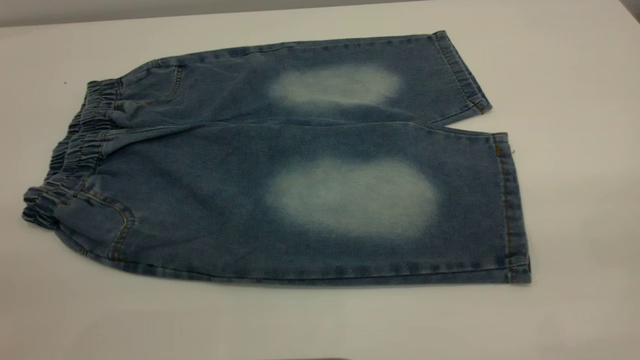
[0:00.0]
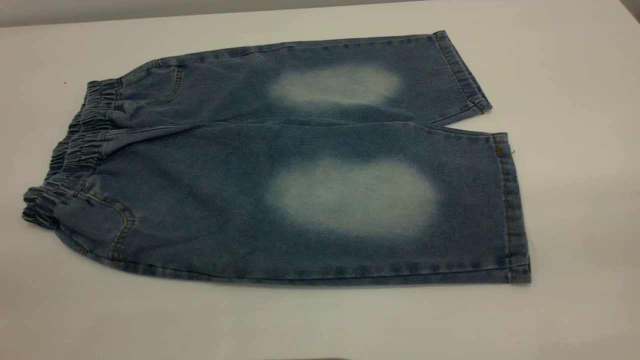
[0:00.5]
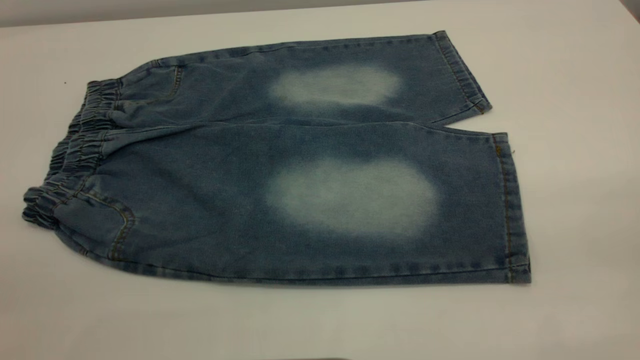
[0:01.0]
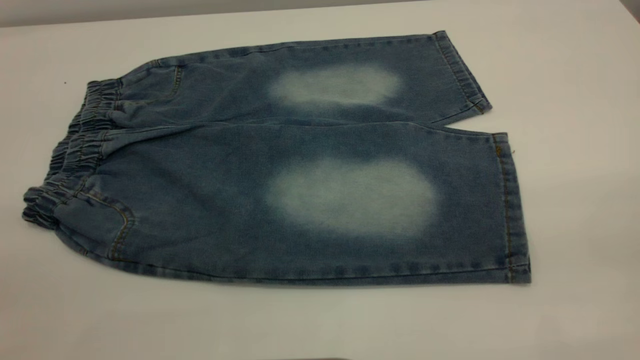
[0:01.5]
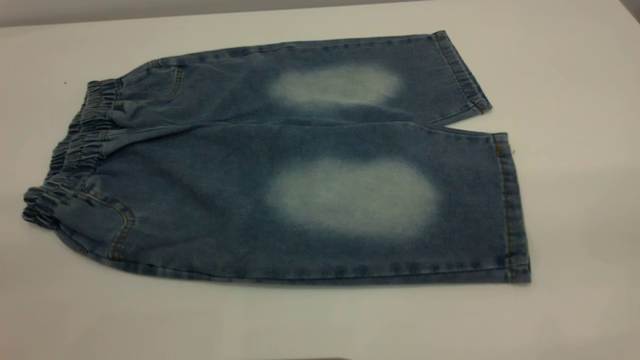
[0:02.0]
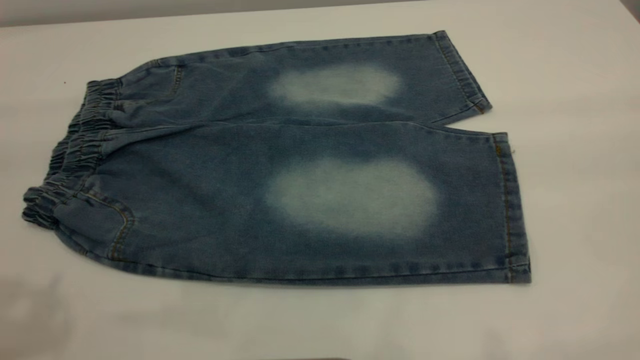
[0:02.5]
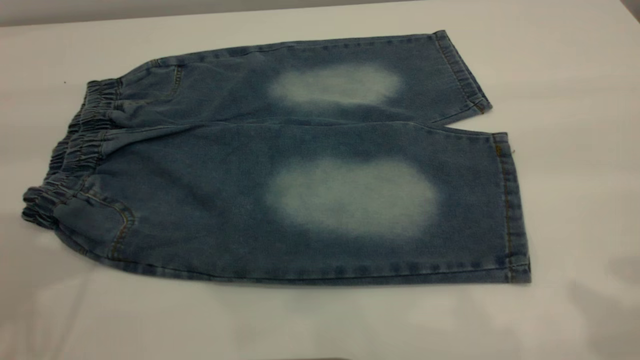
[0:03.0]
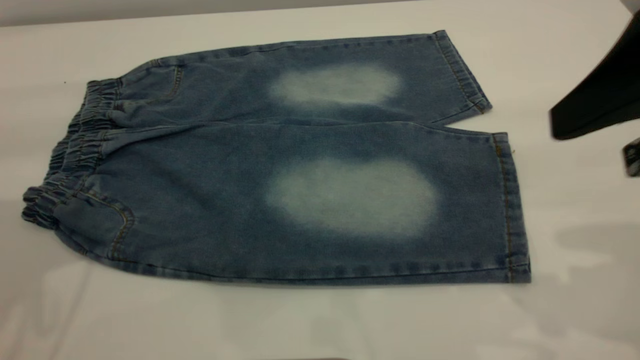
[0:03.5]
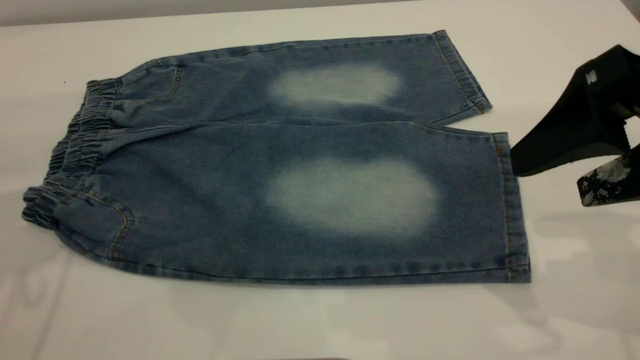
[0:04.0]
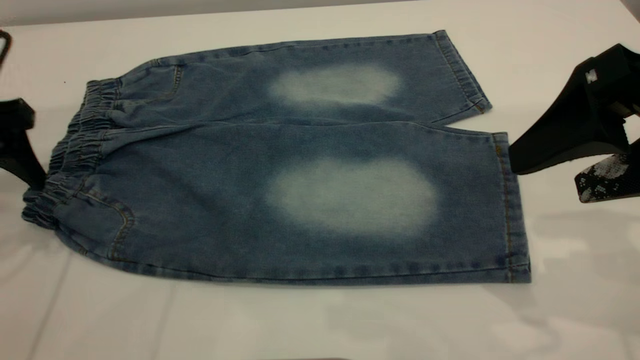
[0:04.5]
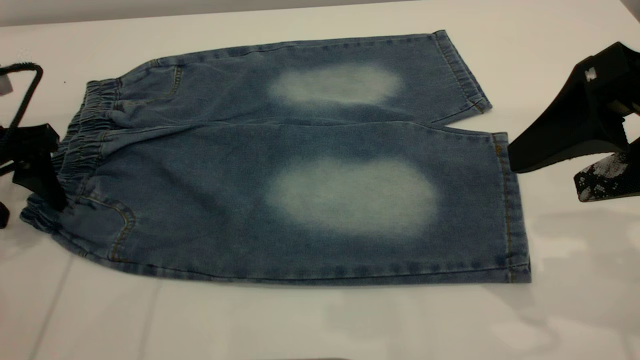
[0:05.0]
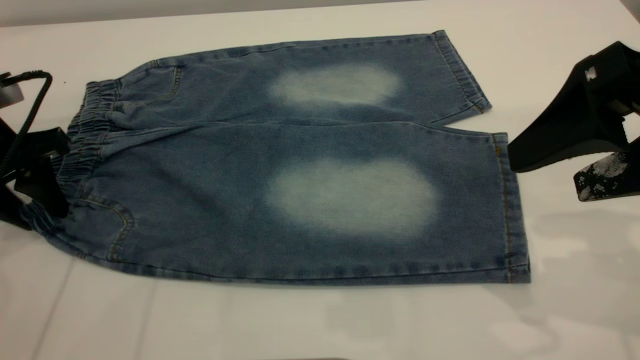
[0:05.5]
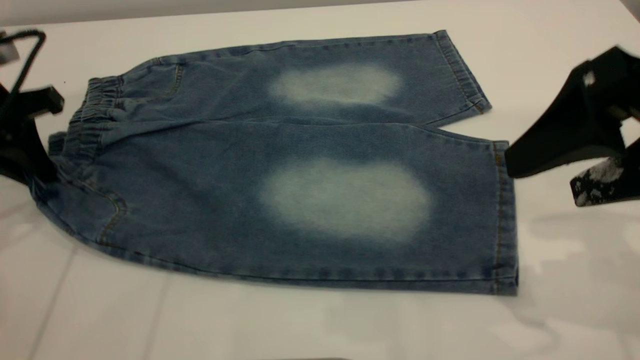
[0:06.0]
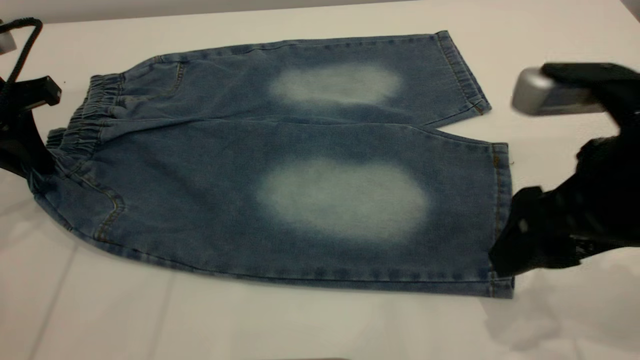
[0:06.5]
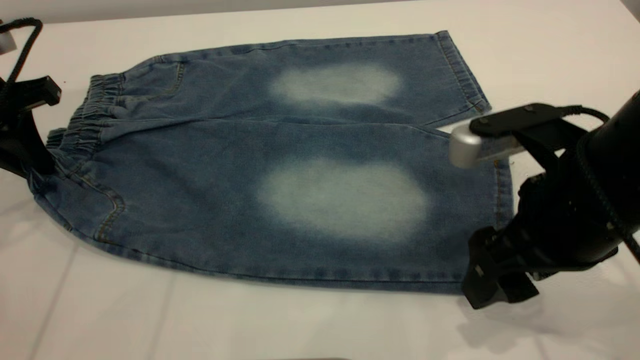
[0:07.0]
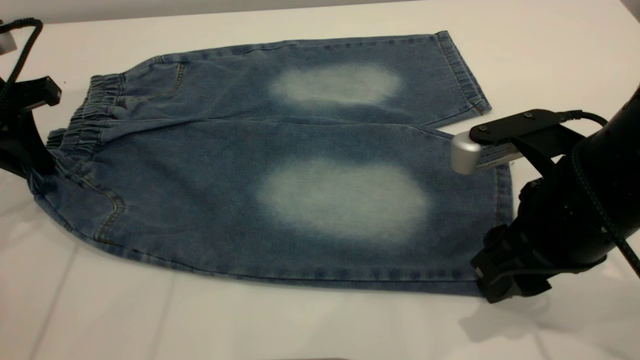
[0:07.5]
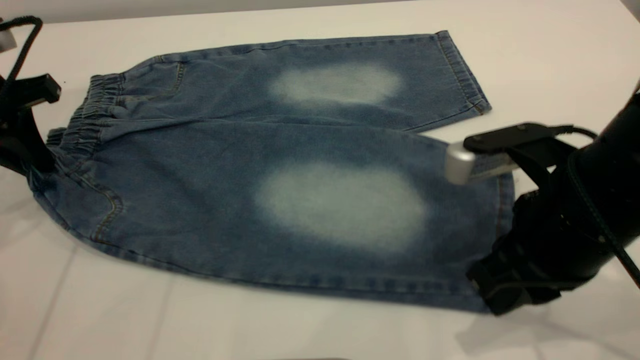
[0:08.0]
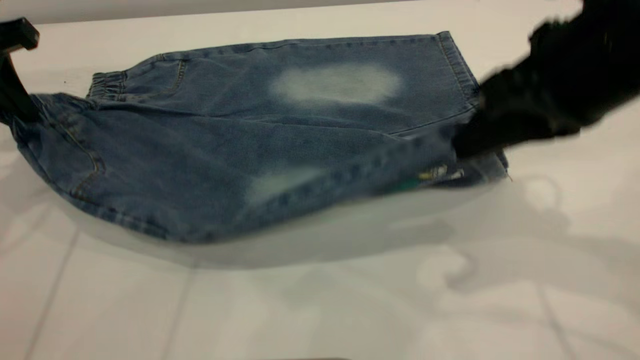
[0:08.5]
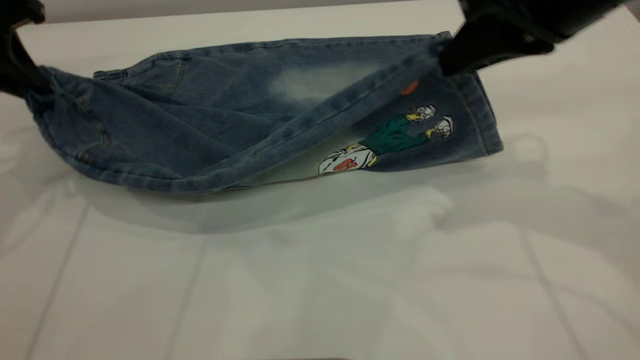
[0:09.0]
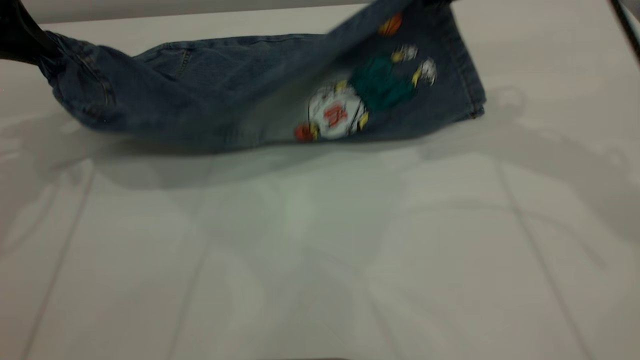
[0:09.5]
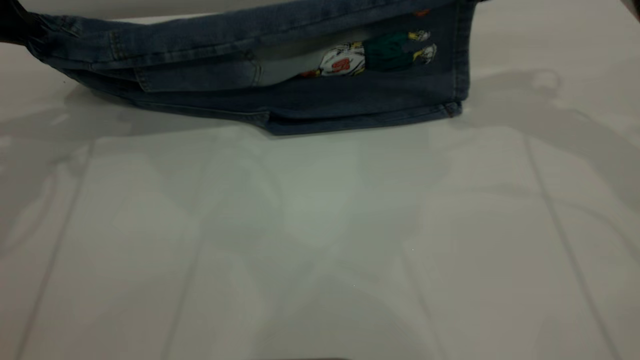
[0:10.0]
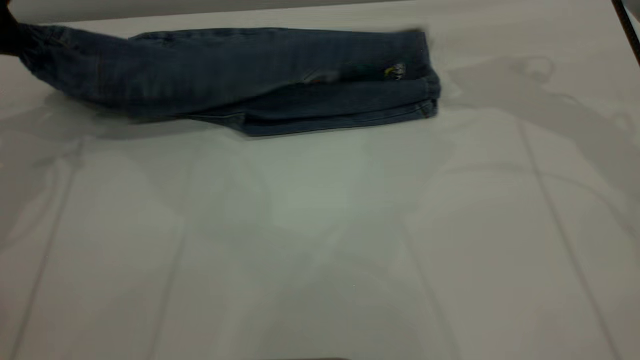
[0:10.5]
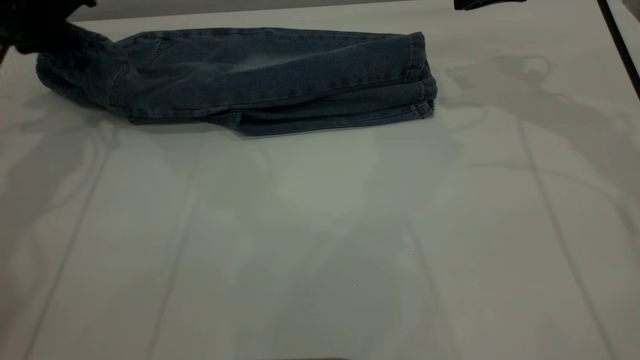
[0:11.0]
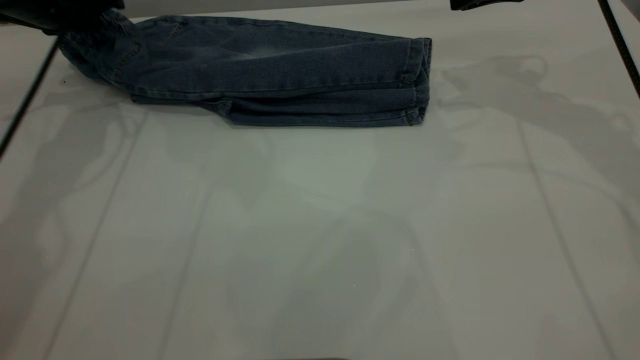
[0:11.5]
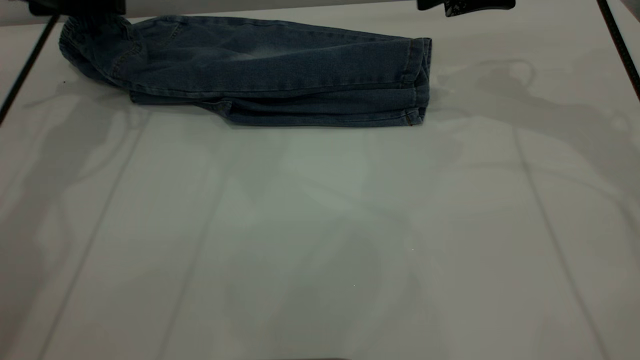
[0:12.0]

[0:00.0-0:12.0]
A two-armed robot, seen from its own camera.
0:02.0 to 0:04.0: The right gripper shifts approximately 25 cm forward and downward.
0:04.0 to 0:06.0: The left gripper travels forward and downward by roughly 10 cm, and closes its fingers.
0:06.0 to 0:08.0: The right gripper moves downward and to the left, some 10 cm, and closes up.
0:08.0 to 0:10.0: The right gripper goes roughly 25 cm forward and upward. Meanwhile the left gripper is displaced upward by approximately 5 cm.
0:10.0 to 0:12.0: The right gripper opens, while the left gripper goes roughly 10 cm forward, and opens its fingers.

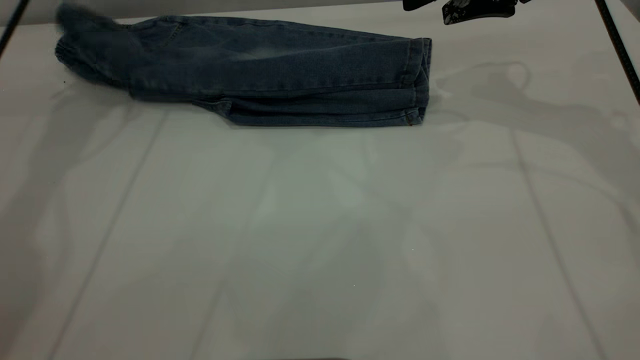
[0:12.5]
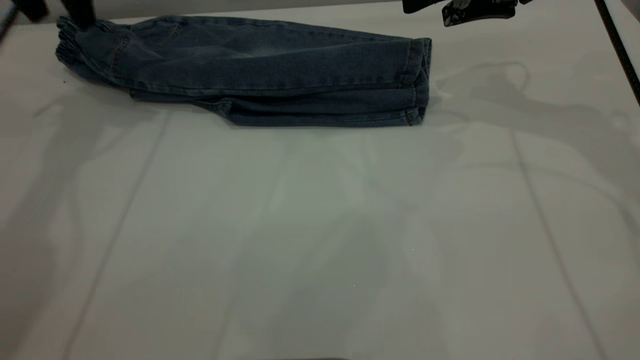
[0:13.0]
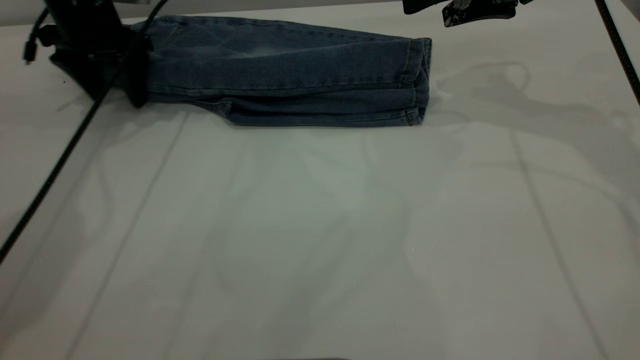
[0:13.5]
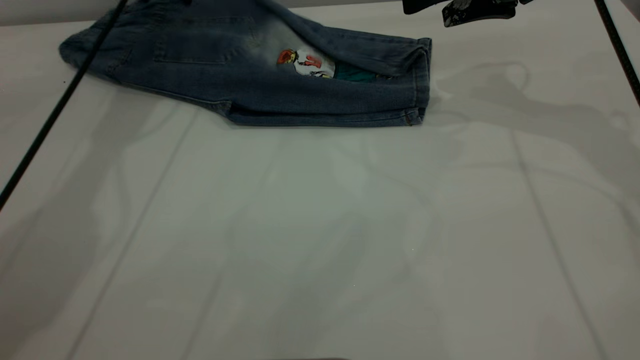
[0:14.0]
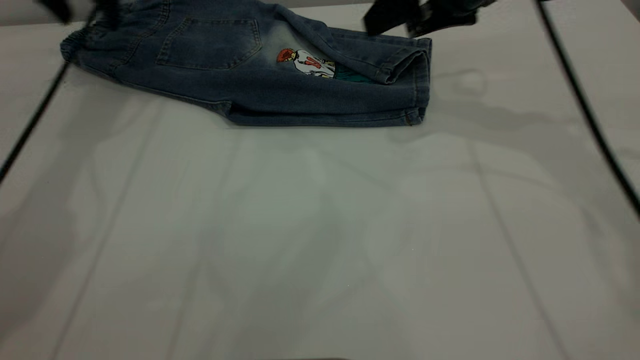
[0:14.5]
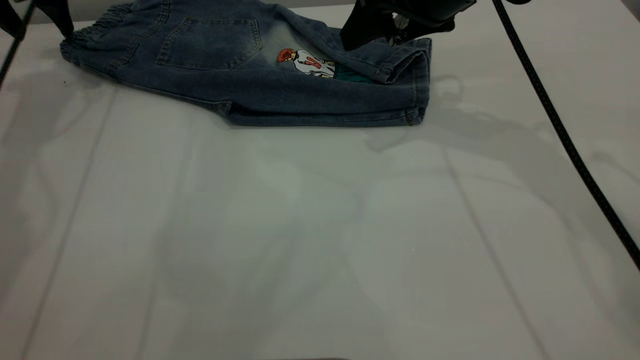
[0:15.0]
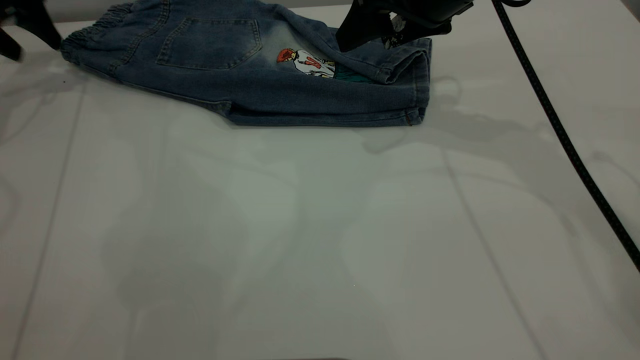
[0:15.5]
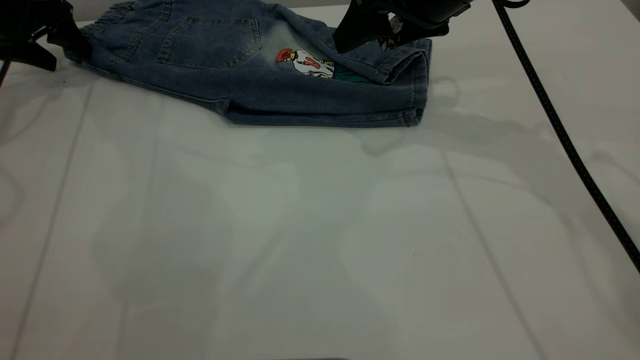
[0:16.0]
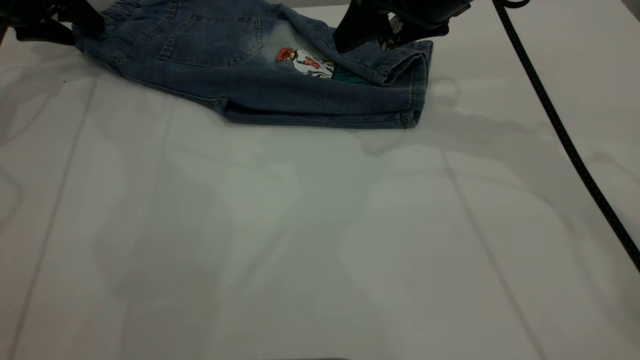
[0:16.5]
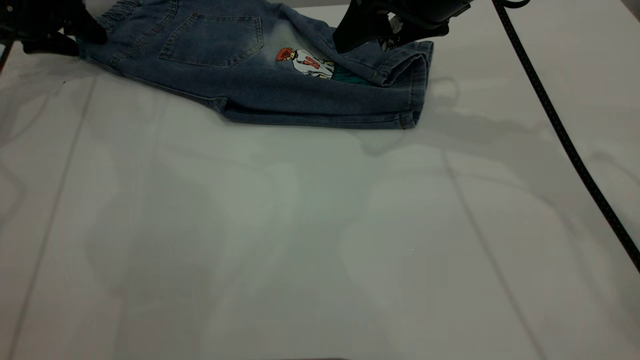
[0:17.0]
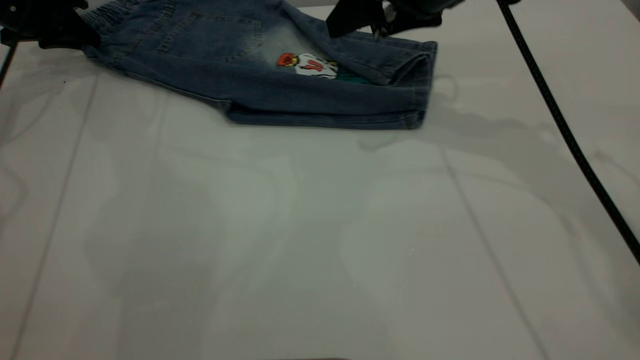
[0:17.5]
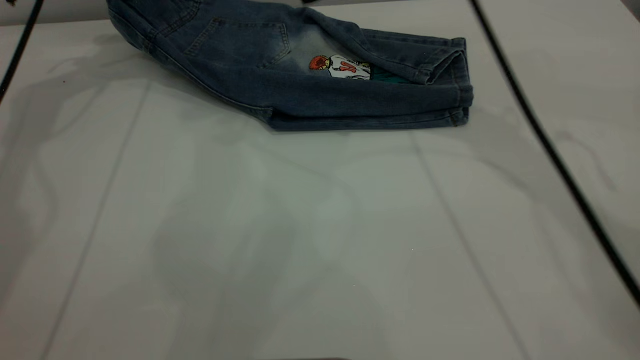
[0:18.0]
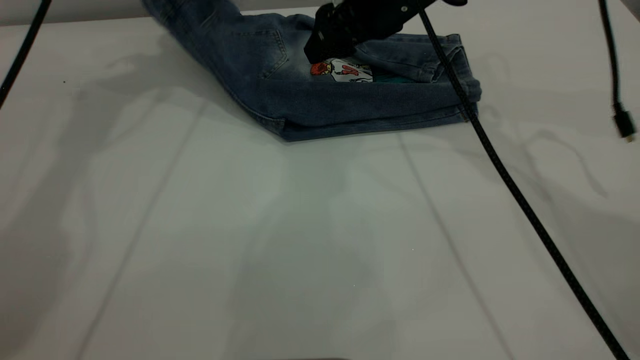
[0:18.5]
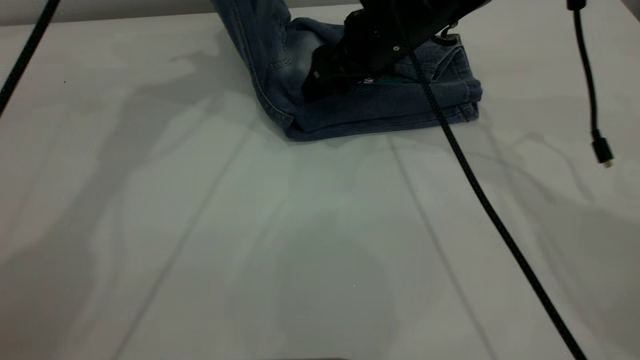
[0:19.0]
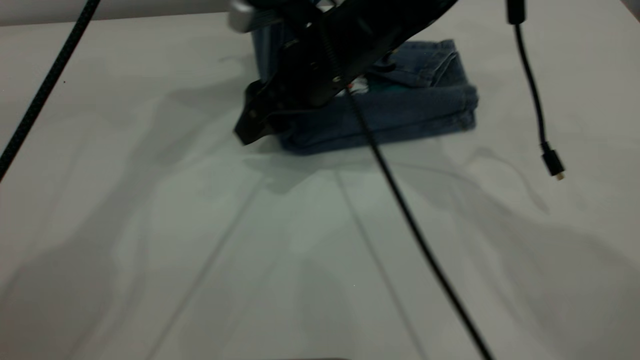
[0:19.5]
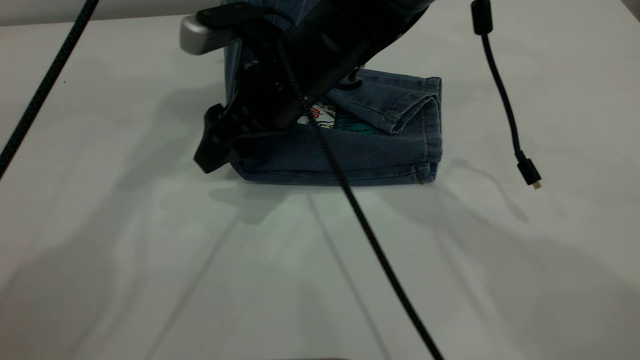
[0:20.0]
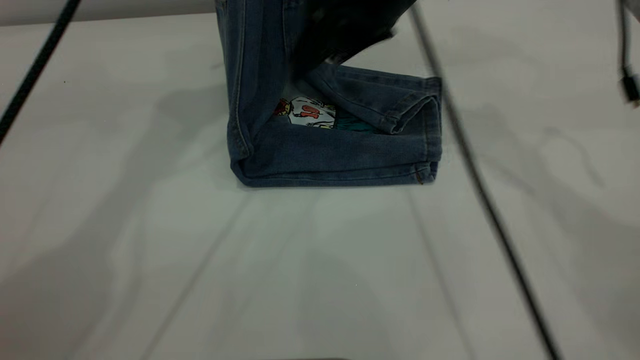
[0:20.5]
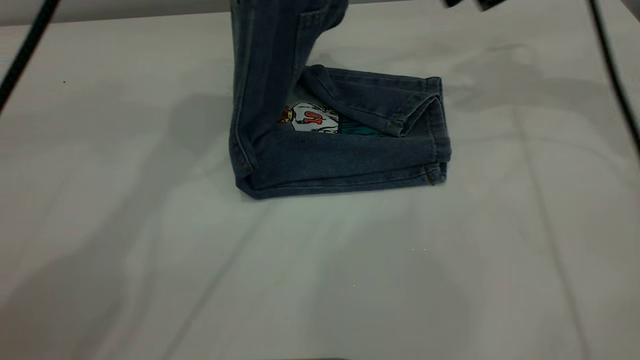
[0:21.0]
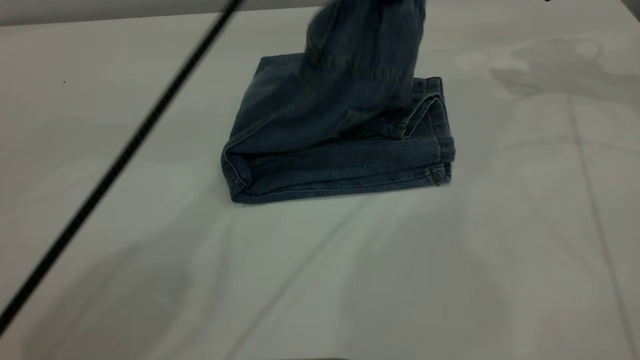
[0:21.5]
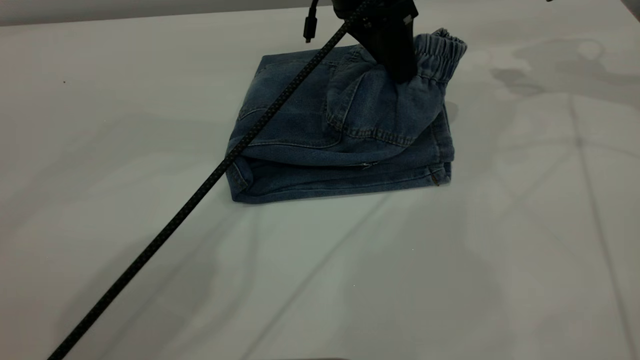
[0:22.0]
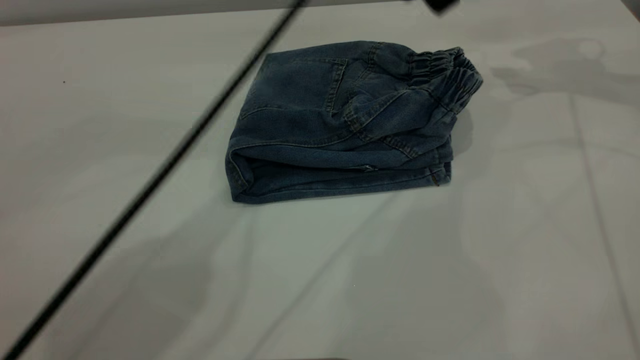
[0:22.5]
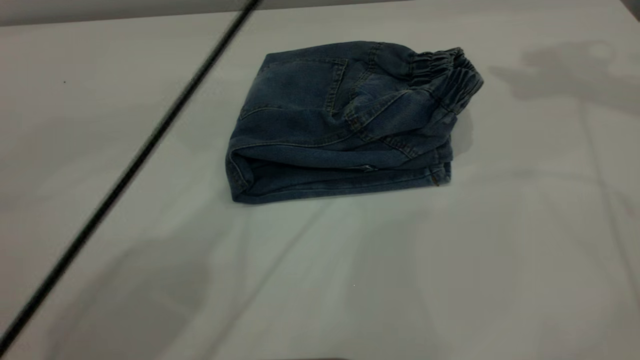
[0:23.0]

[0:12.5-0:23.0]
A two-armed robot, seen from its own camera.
Step, 0:12.5 to 0:15.0: Fold the bottom of the pants upward.
Step, 0:15.5 to 0:22.5: Fold the pants from left to right.
0:12.5 to 0:14.5: The left gripper heads downward, covering approximately 5 cm. The right gripper shifts roughly 5 cm to the left.
0:14.5 to 0:16.5: The left gripper heads to the left and downward, covering approximately 10 cm.
0:16.5 to 0:19.0: The right gripper goes roughly 10 cm downward and to the left. The left gripper travels to the right and upward by roughly 30 cm, and closes up.
0:19.0 to 0:21.0: The right gripper moves to the right and upward, approximately 20 cm. Meanwhile the left gripper shifts approximately 10 cm to the right and backward.
0:21.0 to 0:23.0: The left gripper is displaced to the right and downward by approximately 10 cm, and opens its fingers. The right gripper goes about 15 cm upward.
